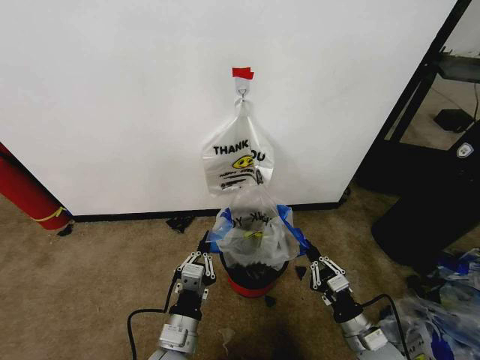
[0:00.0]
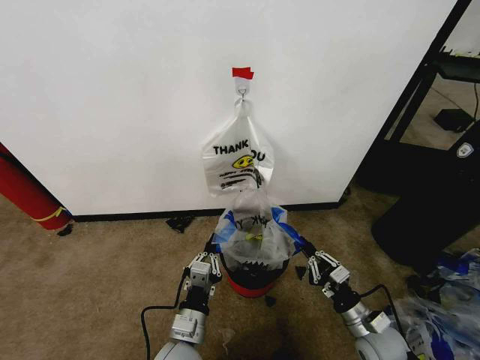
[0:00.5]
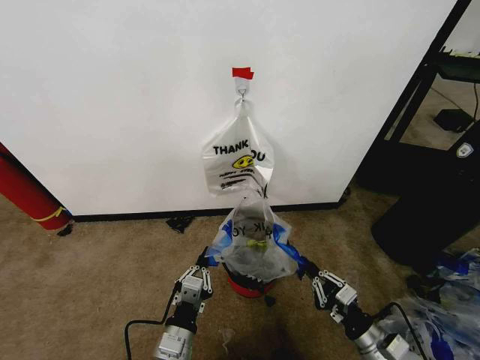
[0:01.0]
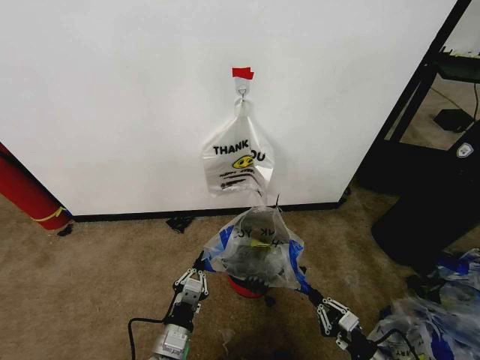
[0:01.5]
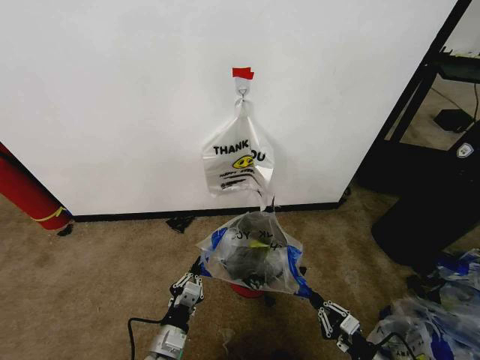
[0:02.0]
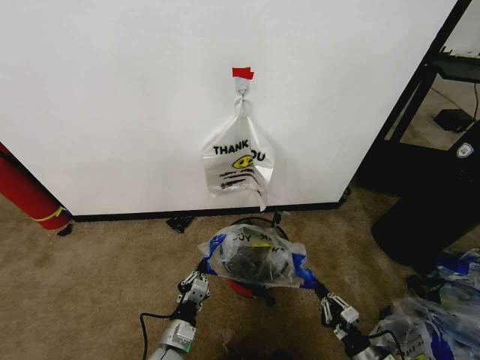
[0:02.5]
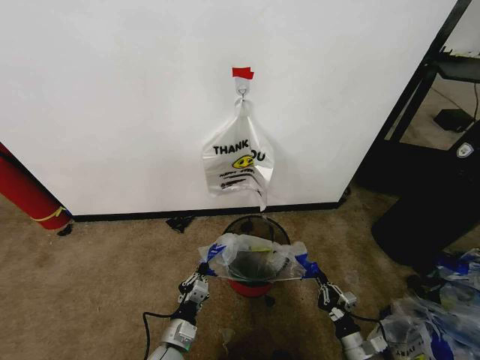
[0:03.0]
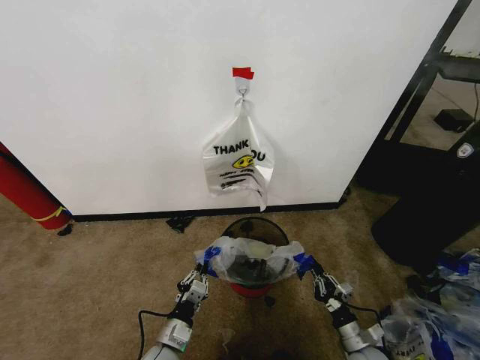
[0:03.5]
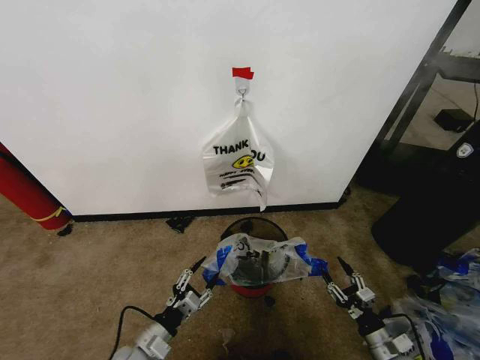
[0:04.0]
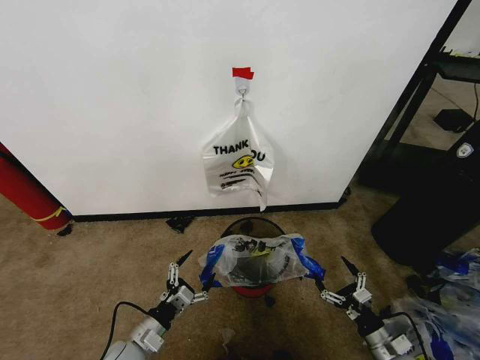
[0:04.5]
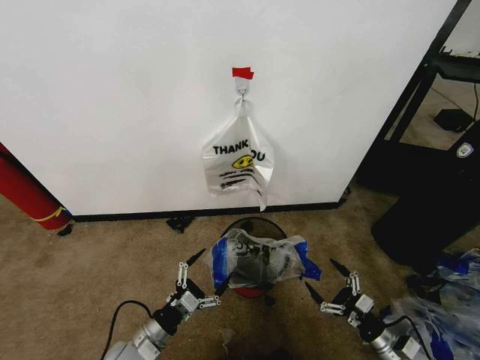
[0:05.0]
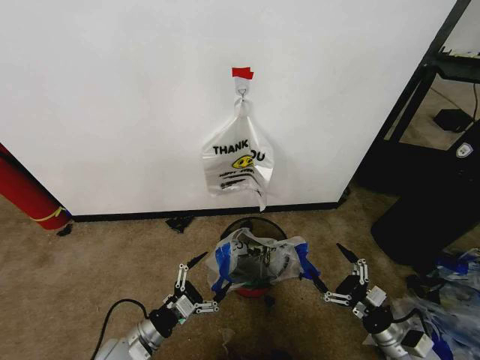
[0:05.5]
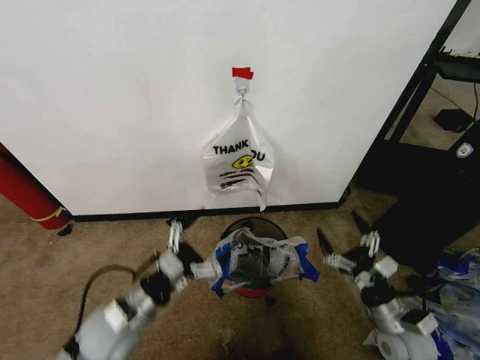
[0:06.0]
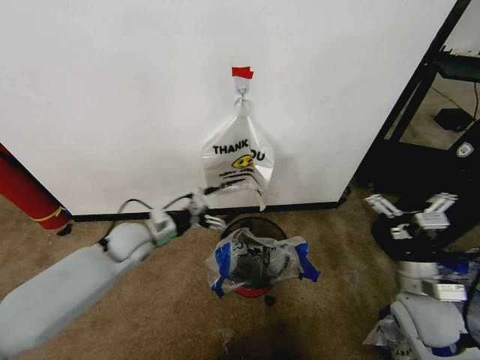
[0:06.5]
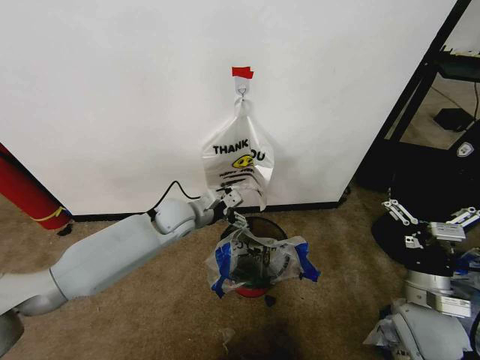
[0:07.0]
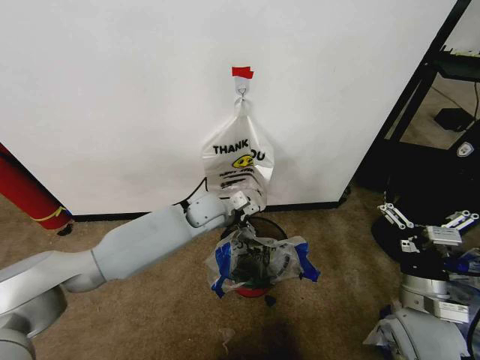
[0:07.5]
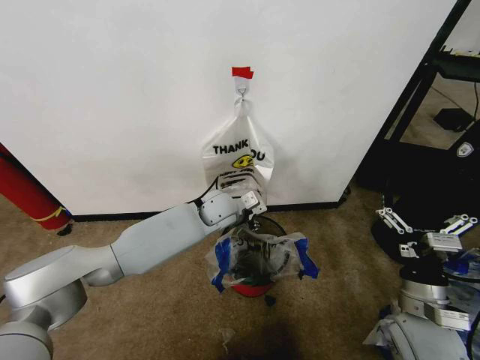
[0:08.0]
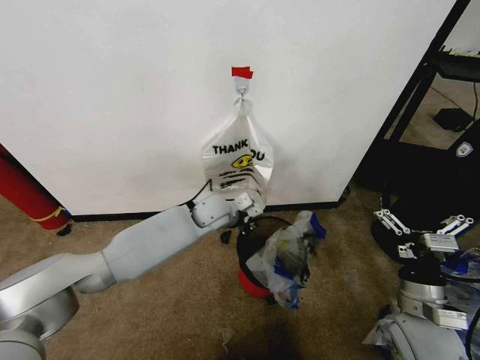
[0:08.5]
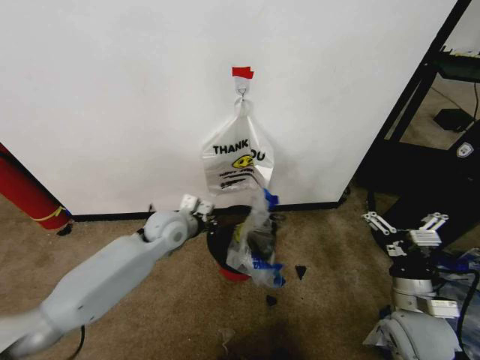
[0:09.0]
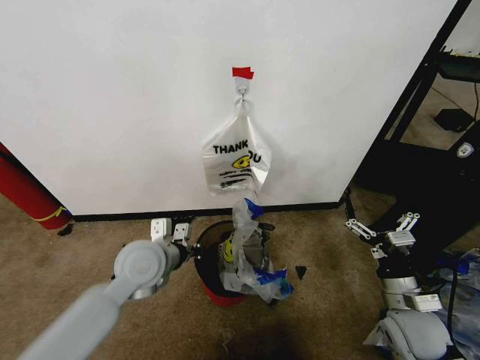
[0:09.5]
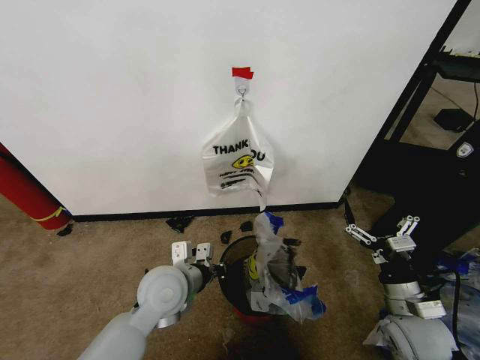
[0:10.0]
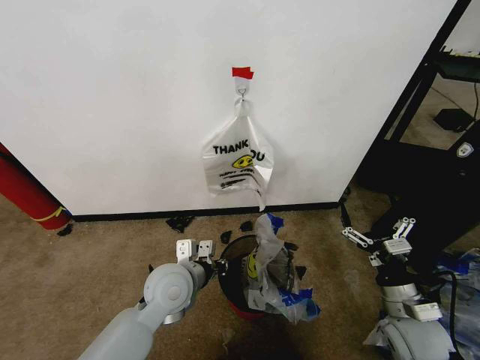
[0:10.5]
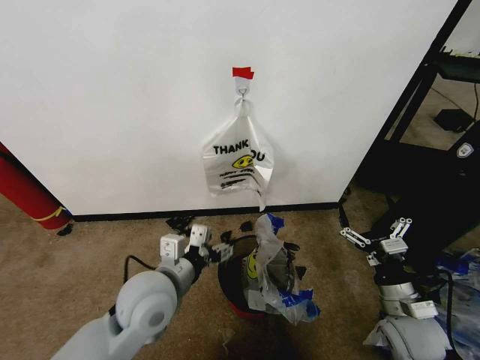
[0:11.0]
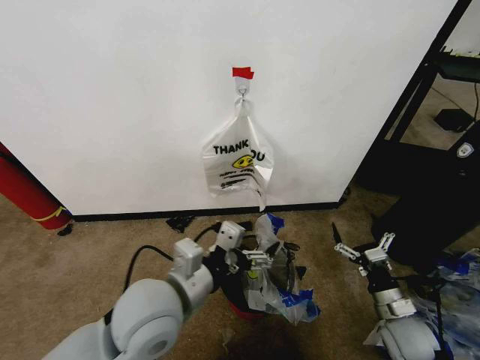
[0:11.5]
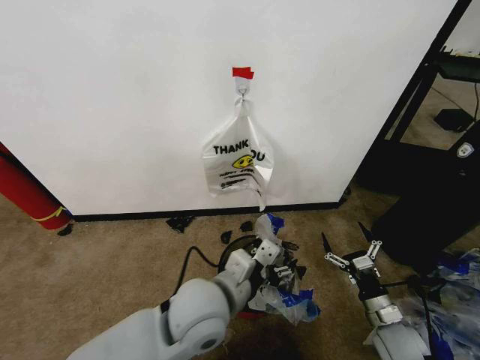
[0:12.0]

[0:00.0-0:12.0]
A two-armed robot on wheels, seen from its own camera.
Task of the whole recording: Pick up the garbage bag from the wall and place it over the trash bin.
0:00.0 to 0:02.0: The right gripper moves to the right, downward and backward, about 10 cm, while the left gripper is displaced downward by approximately 10 cm.
0:02.0 to 0:04.0: The right gripper opens; the left gripper is displaced to the left by about 5 cm, and opens its fingers.
0:04.0 to 0:06.0: Both grippers move upward, approximately 15 cm. The left gripper opens up. Meanwhile the right gripper opens its fingers.
0:06.0 to 0:08.0: The right gripper is displaced upward by about 10 cm. The left gripper heads forward and to the right, covering about 30 cm, and closes.
0:08.0 to 0:10.0: The left gripper goes some 20 cm backward and to the left, and closes.
0:10.0 to 0:12.0: The left gripper goes approximately 10 cm to the right, backward and upward, and opens its fingers. The right gripper is displaced downward by some 10 cm.

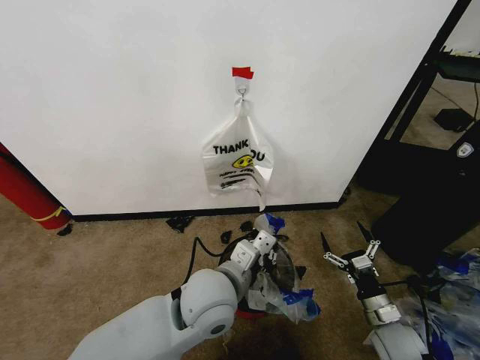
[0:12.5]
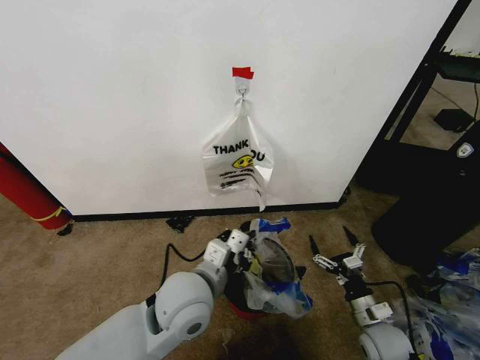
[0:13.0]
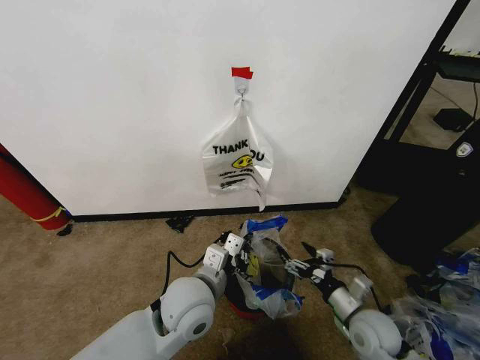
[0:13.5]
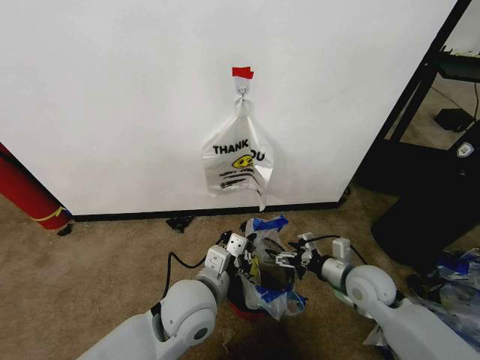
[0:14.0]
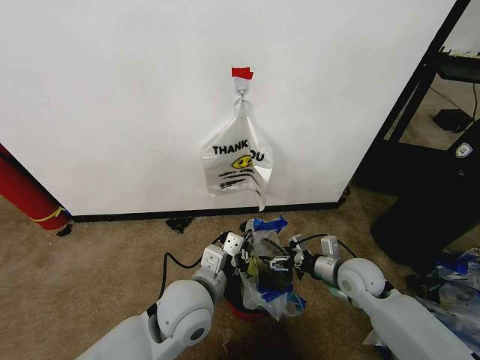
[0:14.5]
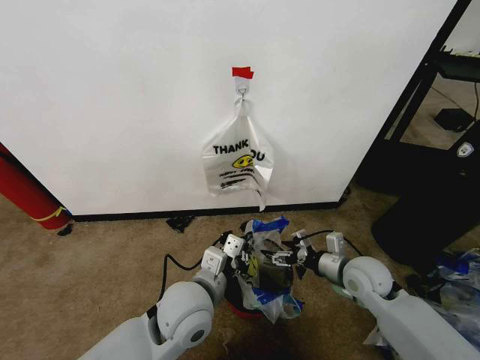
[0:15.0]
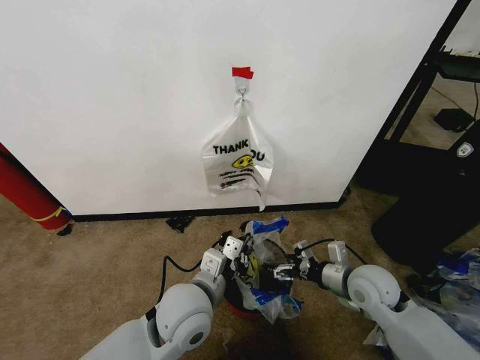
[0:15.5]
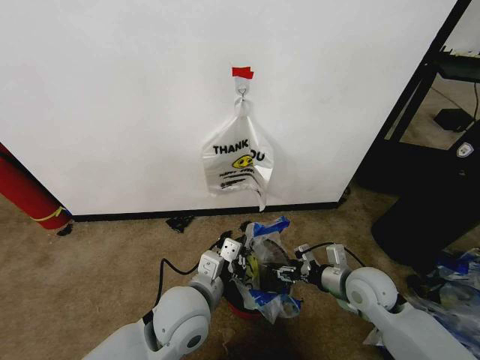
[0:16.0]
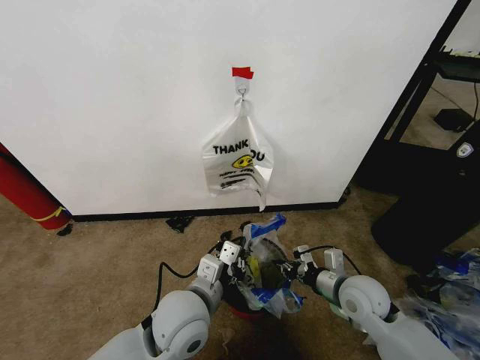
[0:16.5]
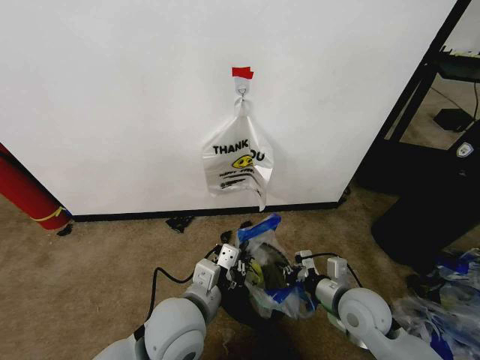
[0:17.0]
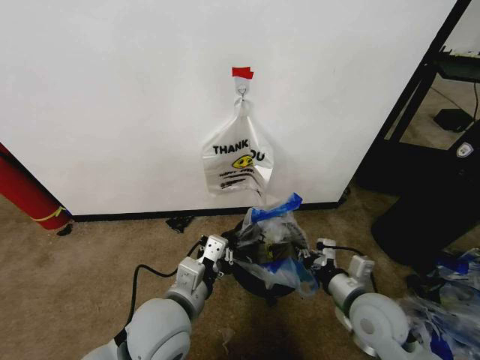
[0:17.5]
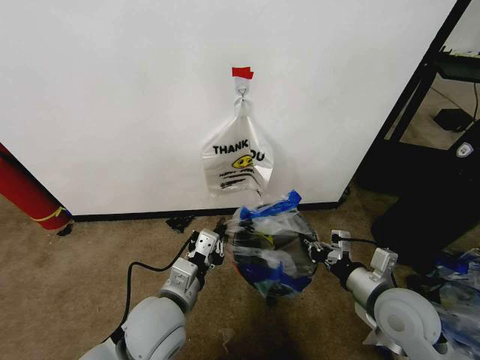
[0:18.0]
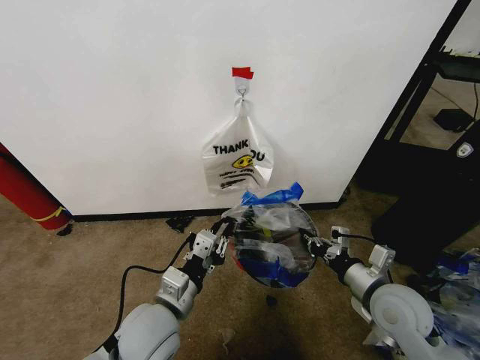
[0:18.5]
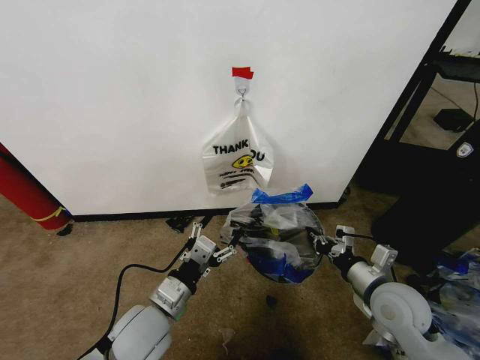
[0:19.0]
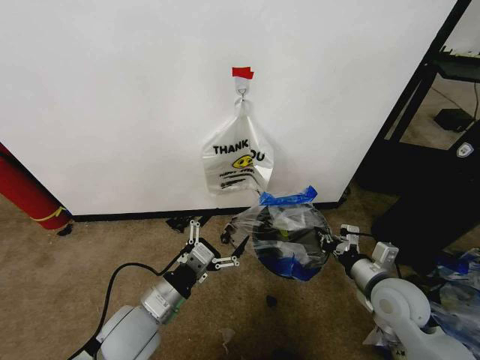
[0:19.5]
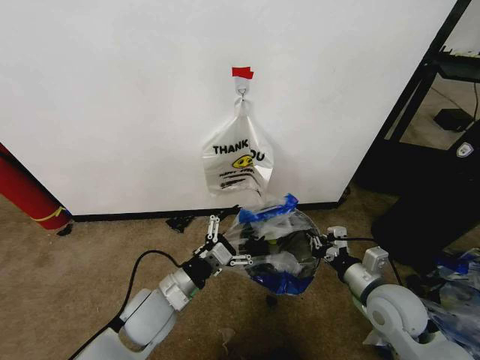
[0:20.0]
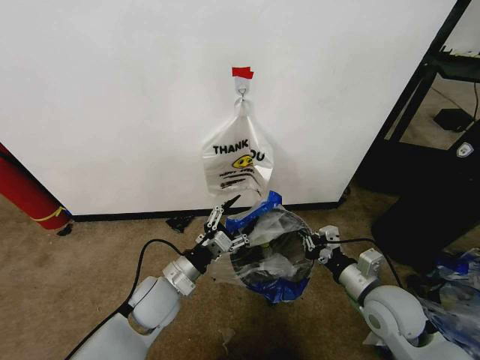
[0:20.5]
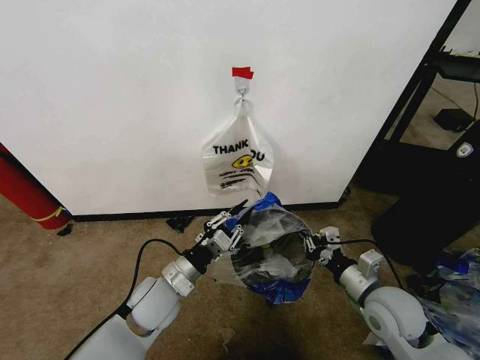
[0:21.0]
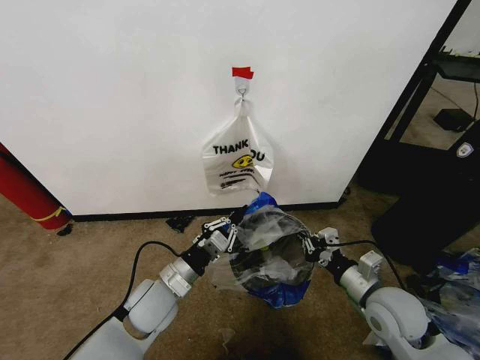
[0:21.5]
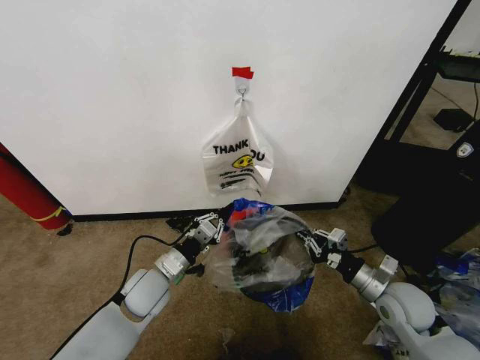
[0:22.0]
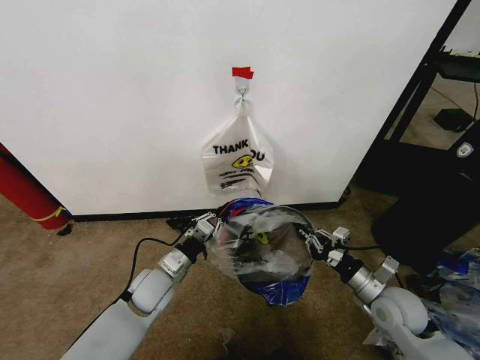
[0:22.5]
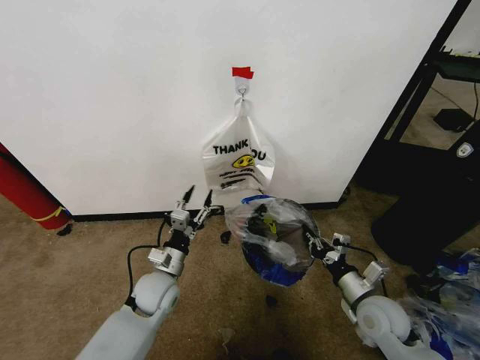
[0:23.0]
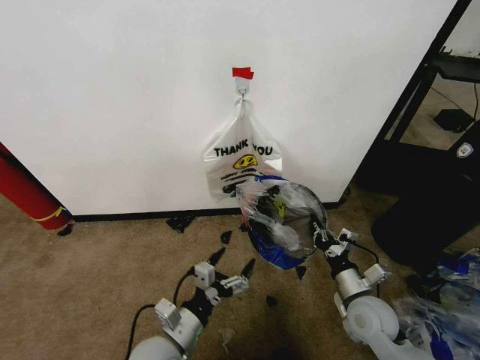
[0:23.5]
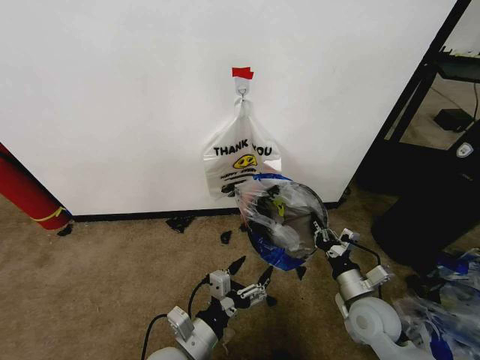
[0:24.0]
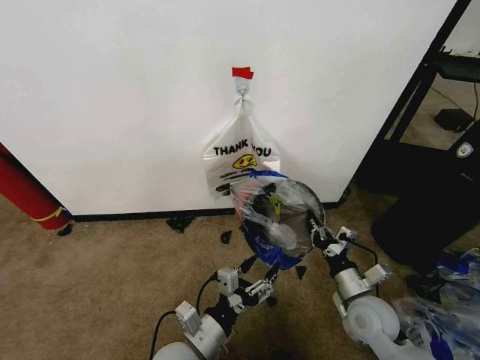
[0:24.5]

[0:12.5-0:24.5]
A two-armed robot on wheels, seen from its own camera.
Task of the whole recording: Pick up the garbage bag from the wall and place it over the trash bin.
0:12.5 to 0:14.5: The right gripper is displaced forward, upward and to the left by some 15 cm.
0:14.5 to 0:16.5: The right gripper shifts by about 5 cm, and closes its fingers.
0:16.5 to 0:18.5: The left gripper goes some 5 cm to the left, while the right gripper travels upward by approximately 5 cm.
0:18.5 to 0:20.5: The left gripper shifts approximately 10 cm forward and downward, and opens up.
0:20.5 to 0:22.5: The left gripper shifts by some 5 cm, and closes up; the right gripper moves some 5 cm.
0:22.5 to 0:24.5: The left gripper is displaced backward and to the right by some 20 cm, and opens; the right gripper shifts about 5 cm to the left.

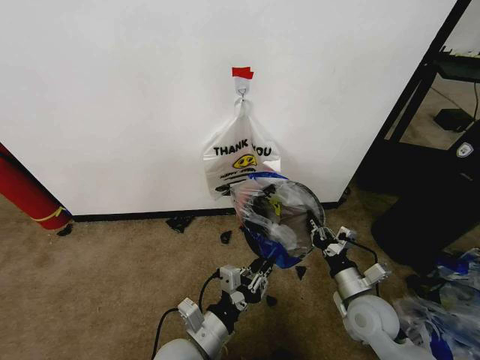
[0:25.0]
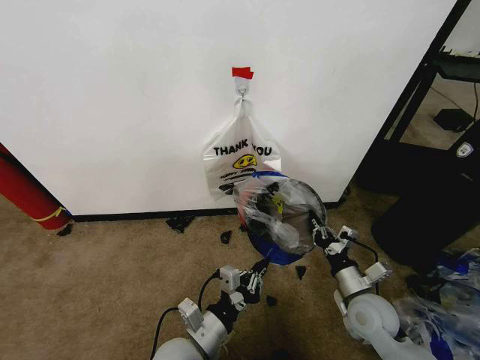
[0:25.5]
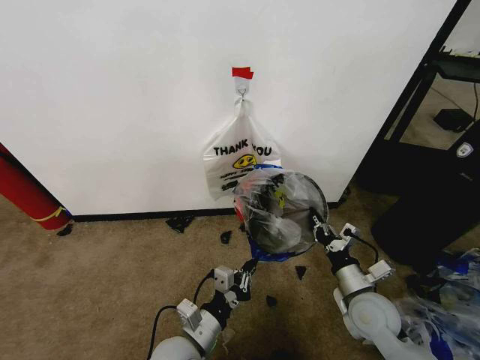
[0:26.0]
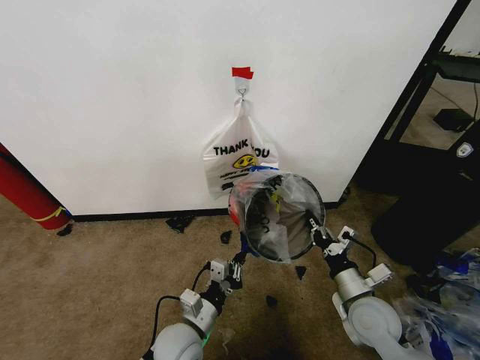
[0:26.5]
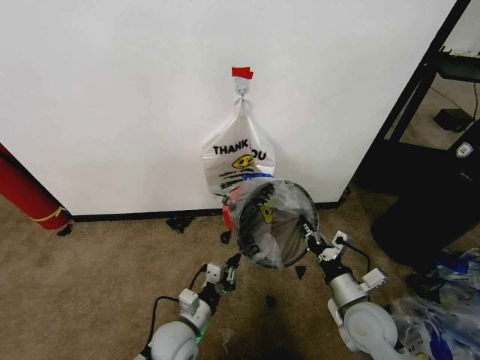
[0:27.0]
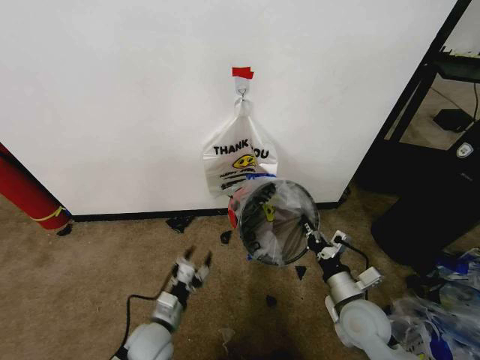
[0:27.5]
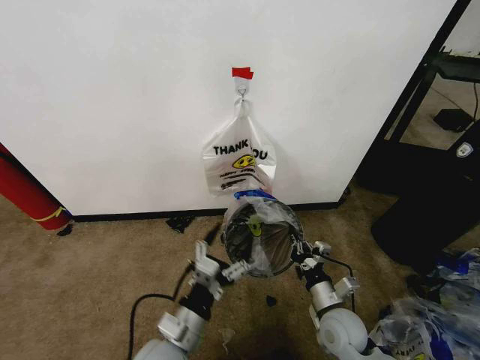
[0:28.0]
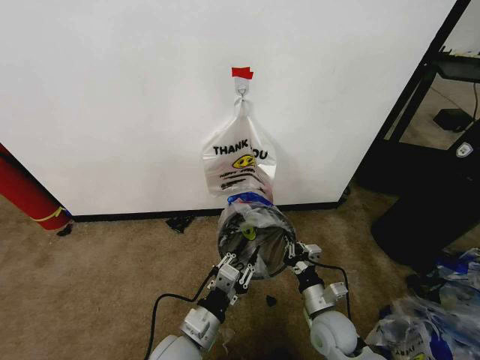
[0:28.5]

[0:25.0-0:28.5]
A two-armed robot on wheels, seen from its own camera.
Task of the whole recording: Pick up the garbage bag from the wall and place it over the trash bin.
0:25.0 to 0:27.0: The left gripper heads downward and forward, covering roughly 10 cm.
0:27.0 to 0:28.5: The right gripper is displaced downward and to the left by approximately 10 cm; the left gripper is displaced upward by some 5 cm, and opens, then closes once more.
